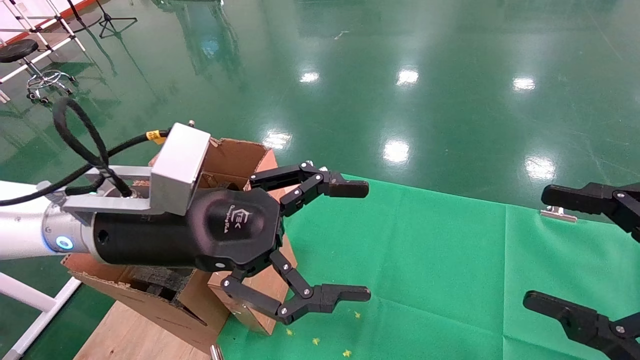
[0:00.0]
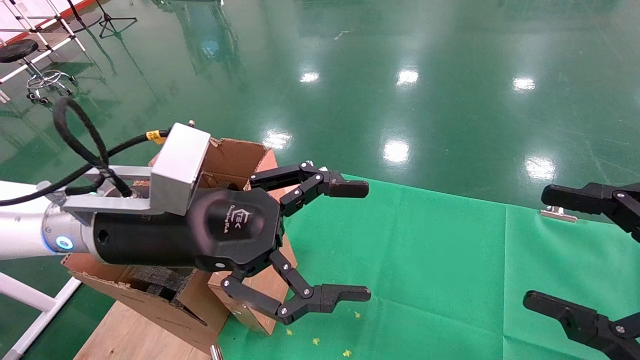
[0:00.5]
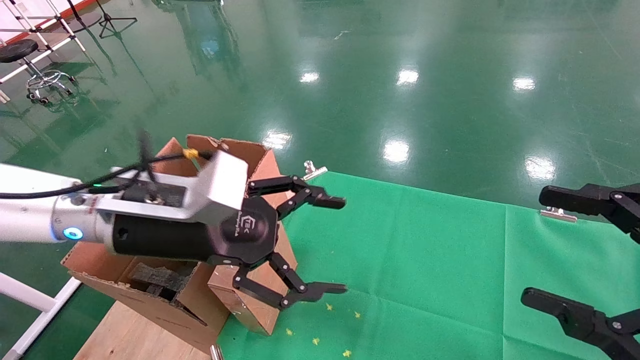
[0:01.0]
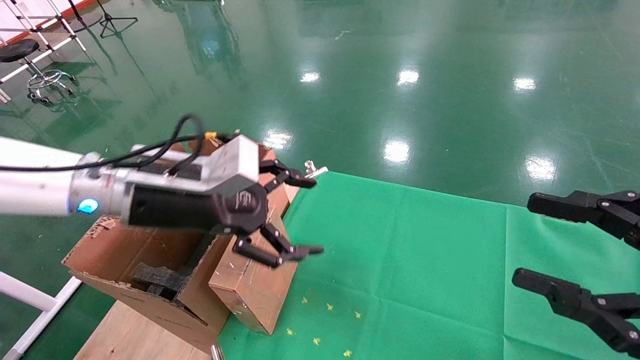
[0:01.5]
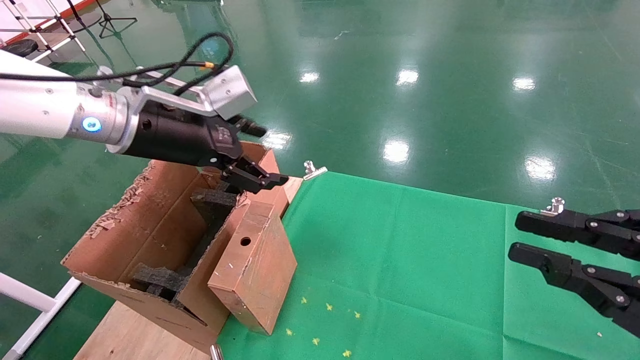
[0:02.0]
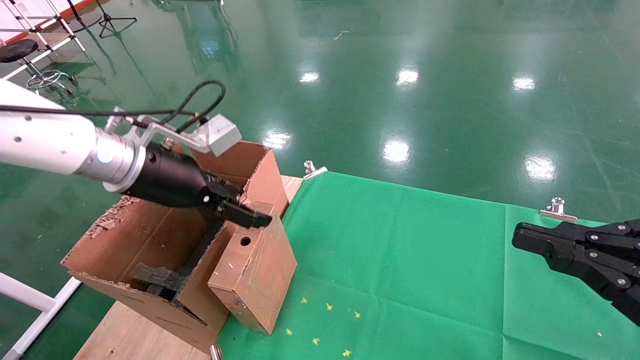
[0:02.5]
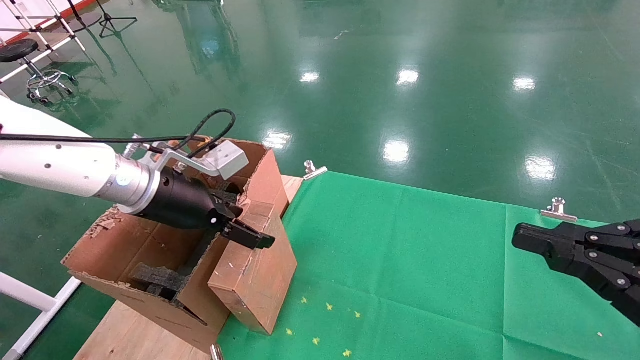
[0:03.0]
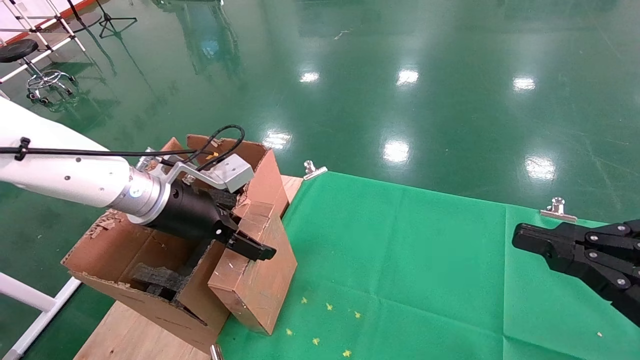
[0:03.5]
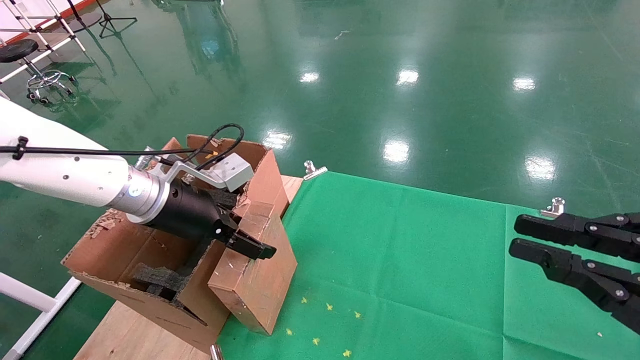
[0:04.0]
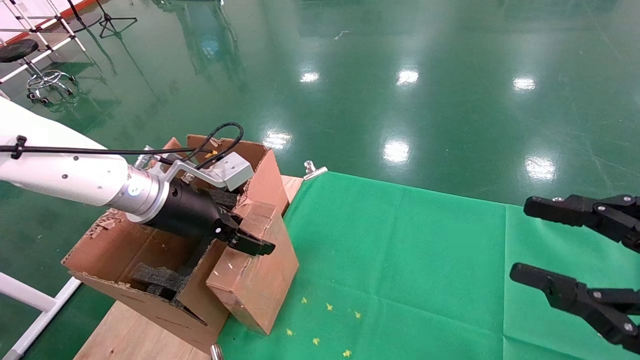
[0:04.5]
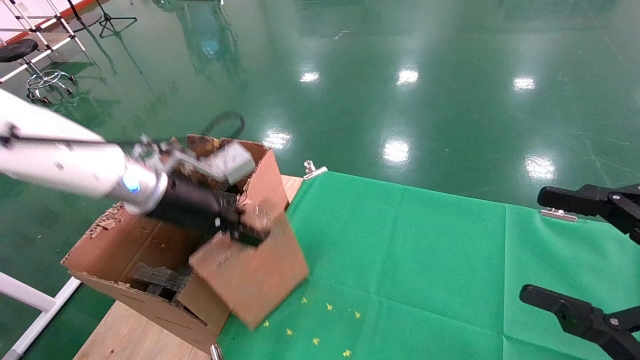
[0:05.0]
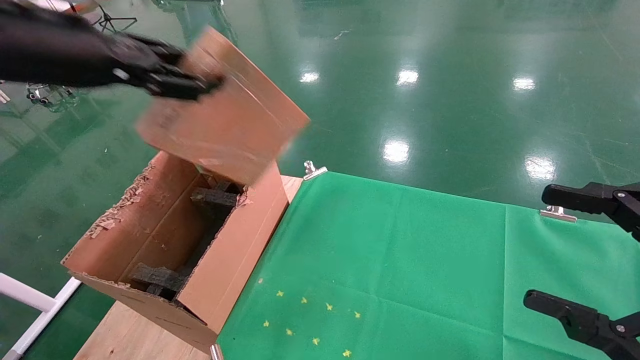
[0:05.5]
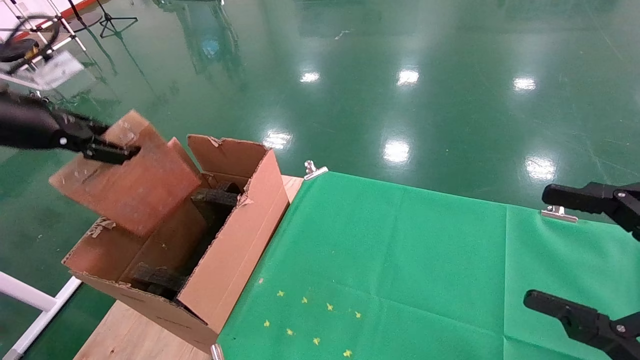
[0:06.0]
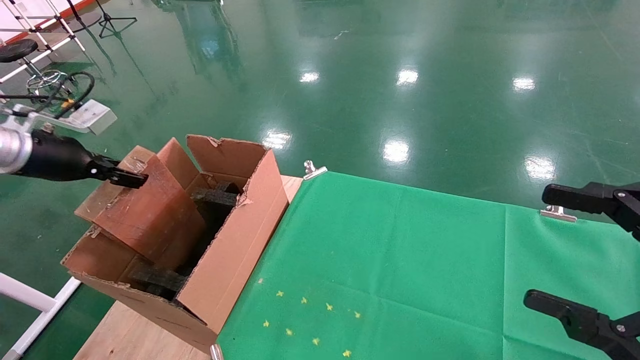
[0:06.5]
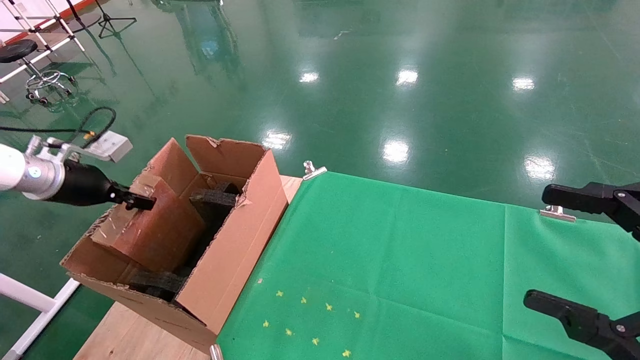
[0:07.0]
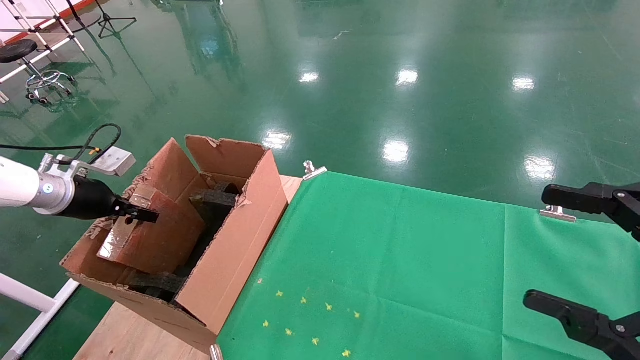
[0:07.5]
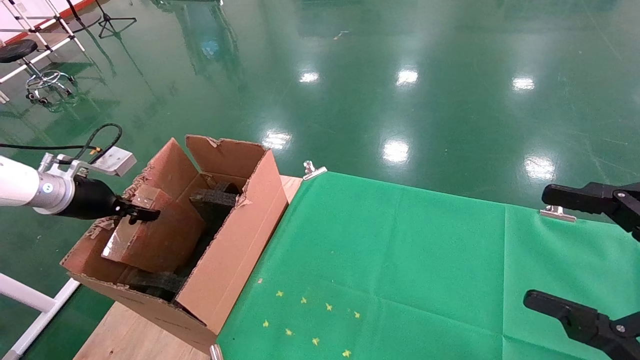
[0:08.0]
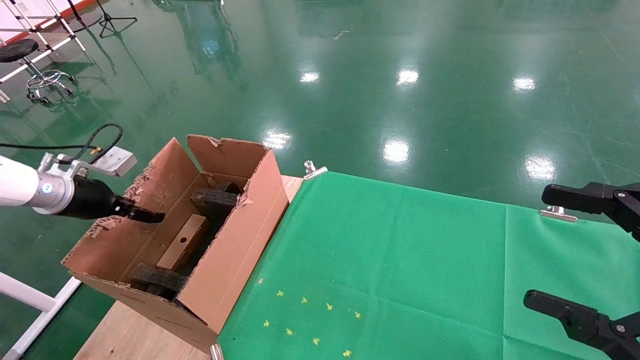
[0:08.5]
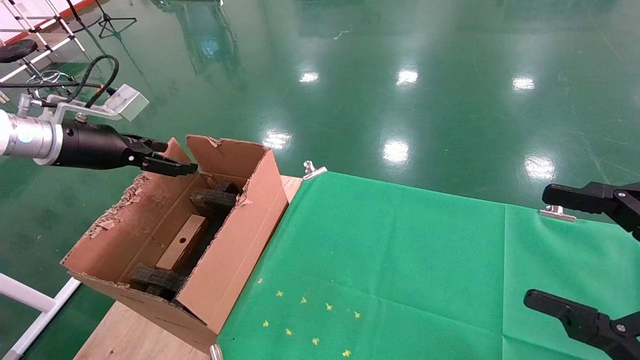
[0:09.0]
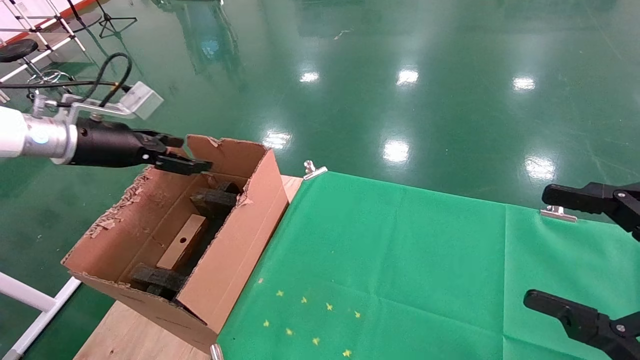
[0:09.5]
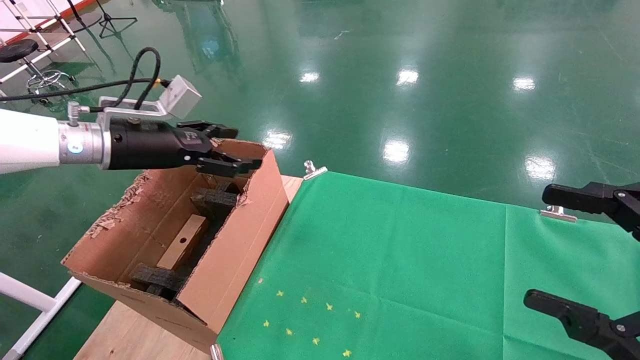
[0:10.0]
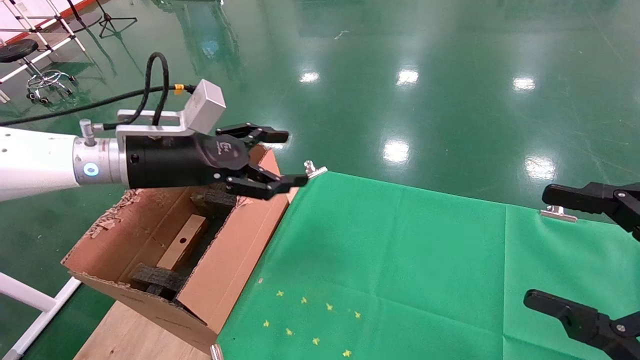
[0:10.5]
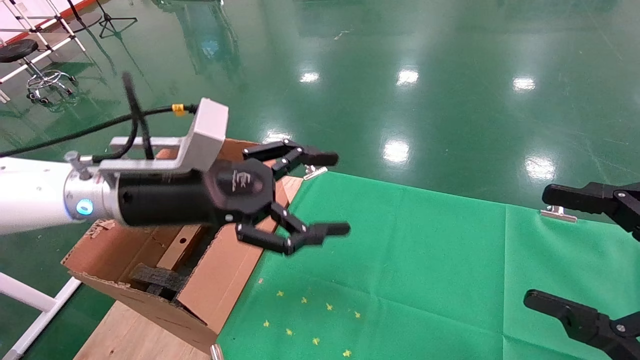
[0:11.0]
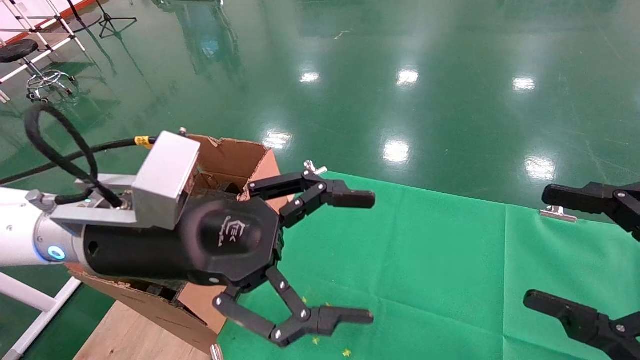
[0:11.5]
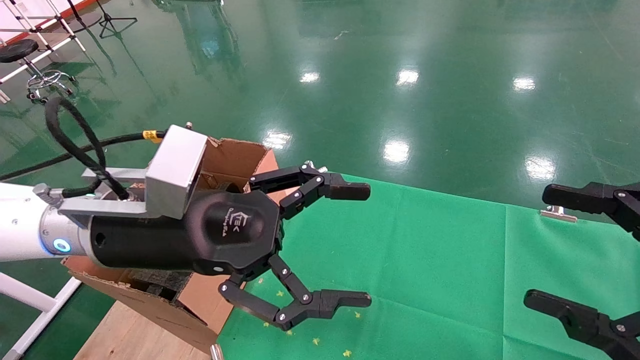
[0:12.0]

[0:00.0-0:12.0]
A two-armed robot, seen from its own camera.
Task of the whole recording: using a robotic arm to pick up a cardboard box and palace it the carton.
Step, 0:01.0 to 0:04.5: Pick up the mouse and the power cord paper box.
Step, 0:05.0 to 0:08.0: Place the mouse and the power cord paper box into the container.
0:00.0 to 0:02.0: The left gripper goes some 10 cm forward, upward and to the left, while the right gripper closes its fingers.
0:02.0 to 0:04.0: The left gripper goes some 10 cm downward.
0:04.0 to 0:06.0: The right gripper opens up; the left gripper shifts roughly 25 cm to the left and upward, and closes up.
0:06.0 to 0:08.0: The left gripper shifts some 20 cm downward and forward.
0:08.0 to 0:10.0: The left gripper is displaced to the right and upward by some 15 cm, and opens up.
0:10.0 to 0:12.0: The left gripper shifts about 20 cm to the right and backward.

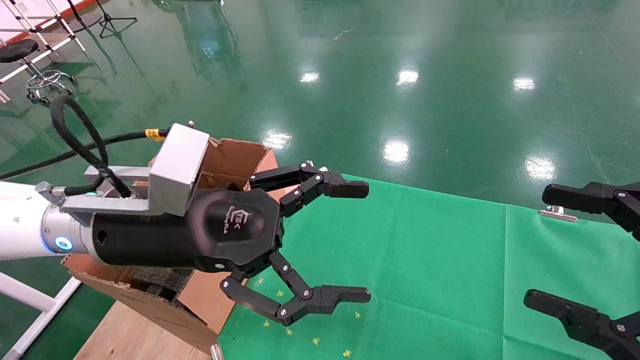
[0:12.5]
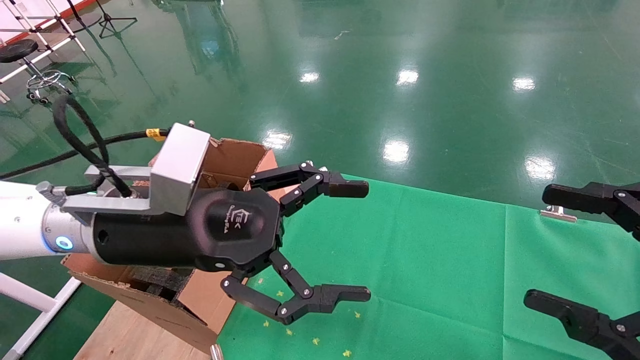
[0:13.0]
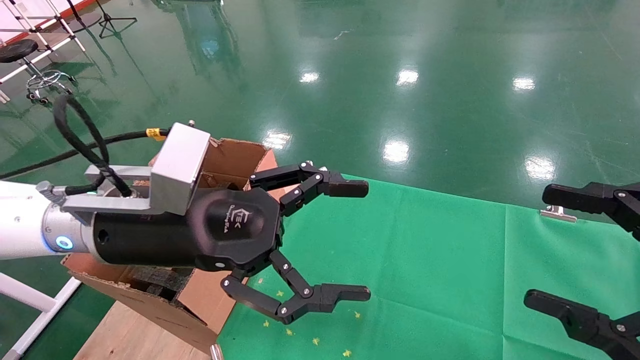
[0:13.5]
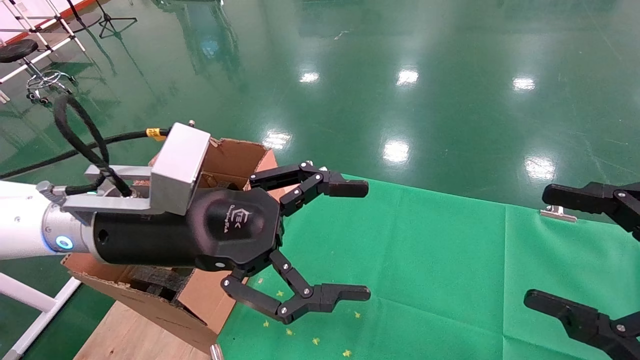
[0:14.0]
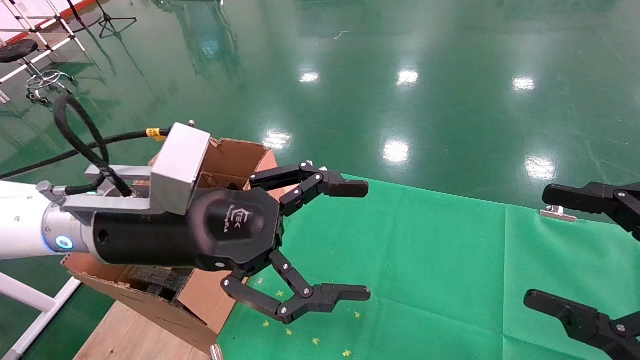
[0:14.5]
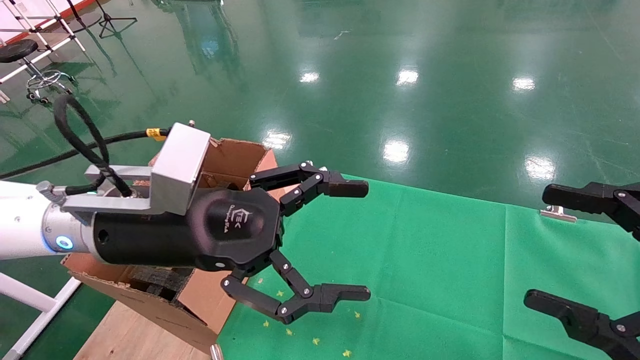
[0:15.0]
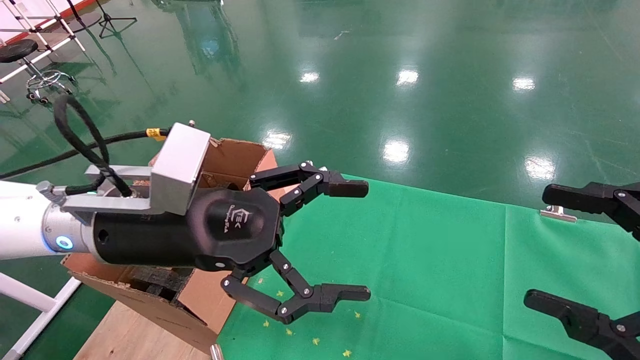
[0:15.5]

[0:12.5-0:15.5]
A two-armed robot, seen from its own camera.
Task of the whole recording: using a robotic arm to pick up a cardboard box and palace it the carton.
0:12.5 to 0:15.5: Neither gripper changes place.
